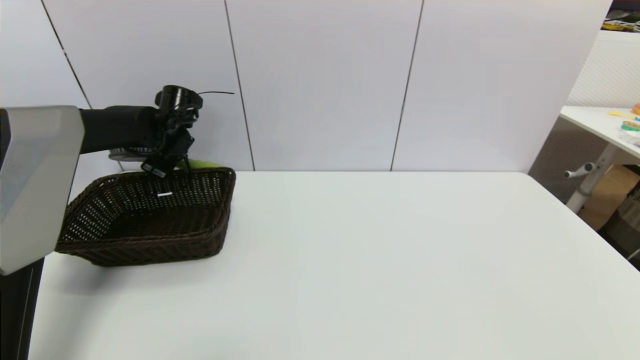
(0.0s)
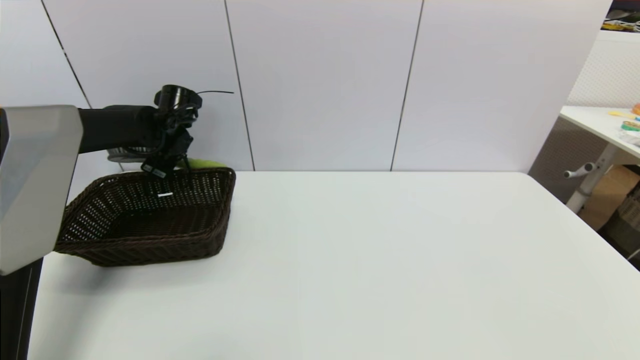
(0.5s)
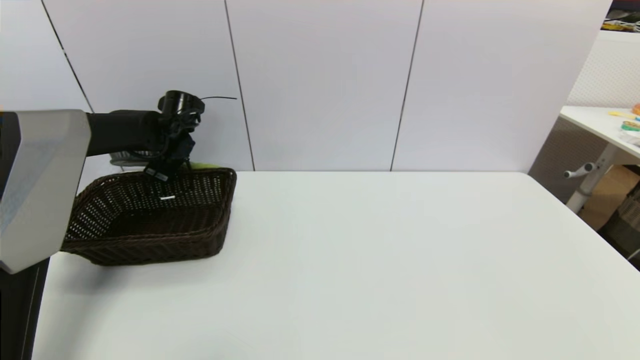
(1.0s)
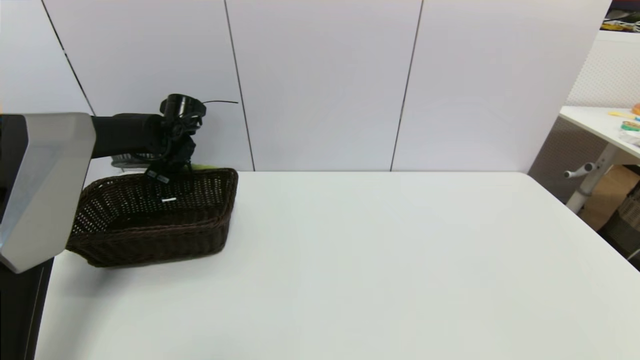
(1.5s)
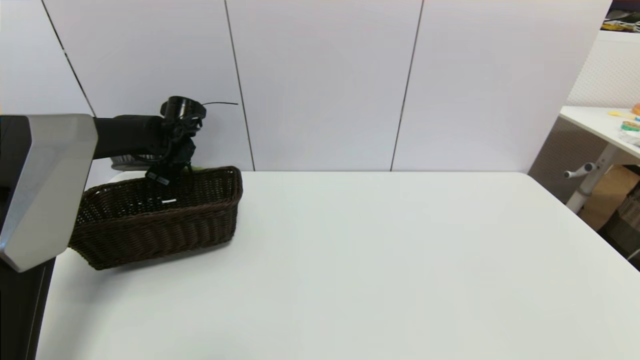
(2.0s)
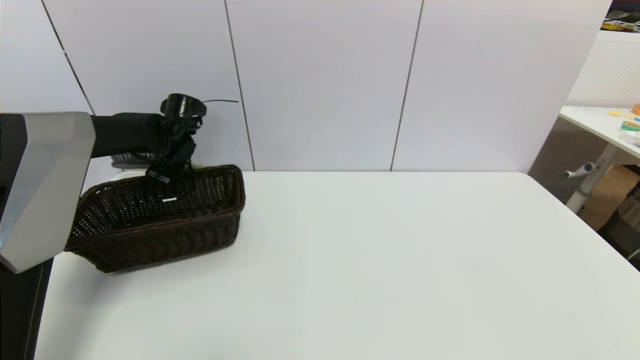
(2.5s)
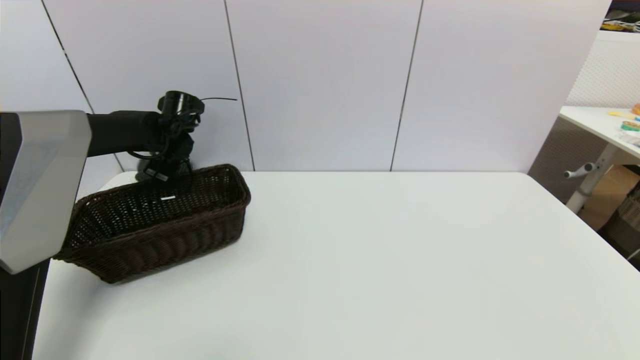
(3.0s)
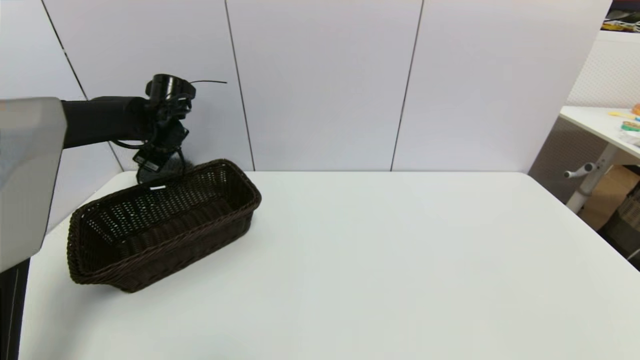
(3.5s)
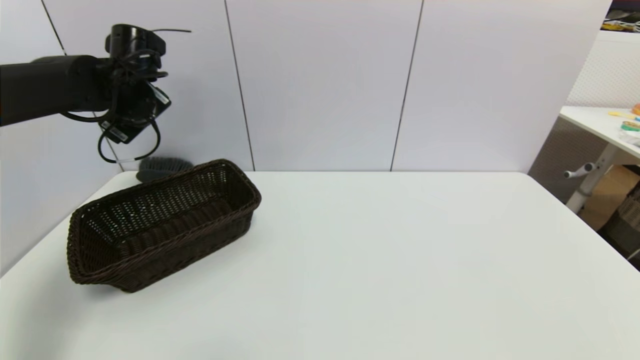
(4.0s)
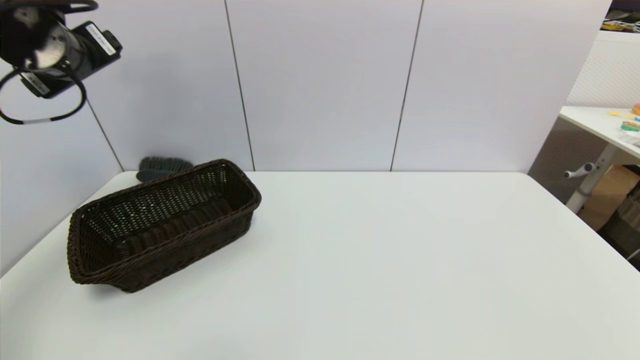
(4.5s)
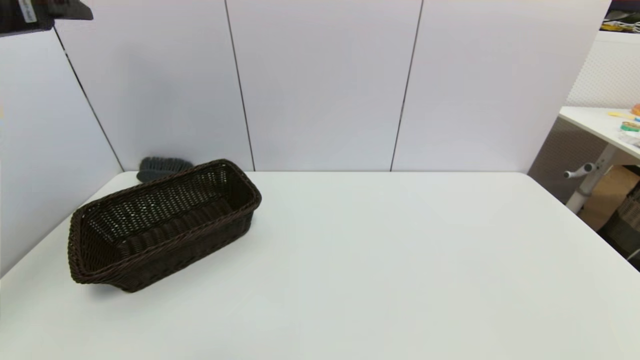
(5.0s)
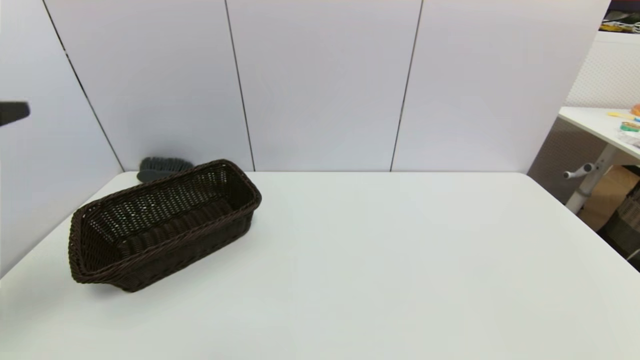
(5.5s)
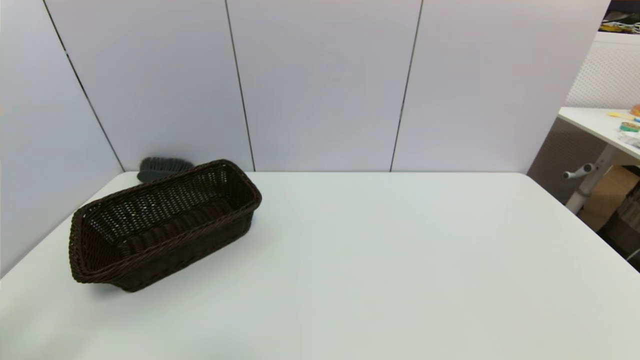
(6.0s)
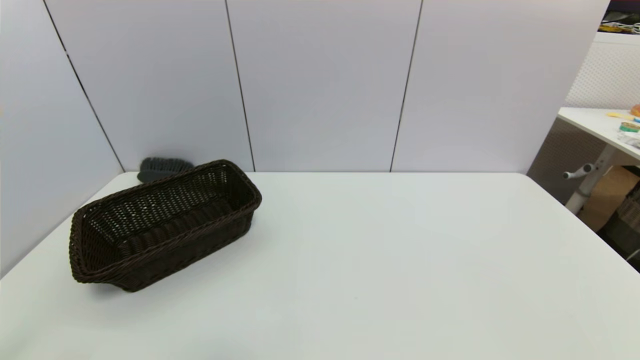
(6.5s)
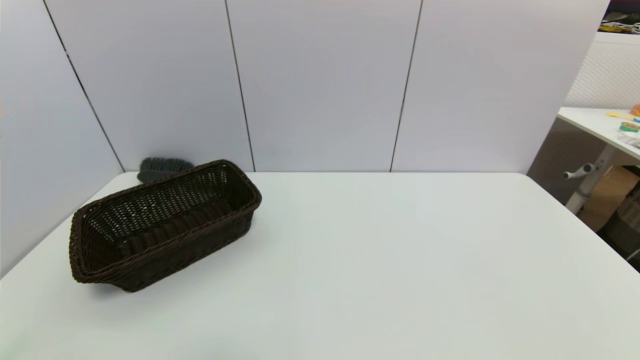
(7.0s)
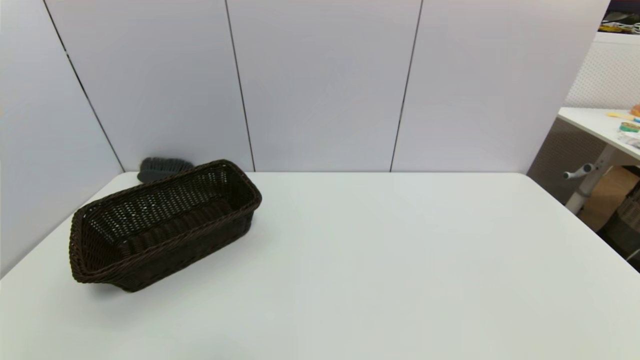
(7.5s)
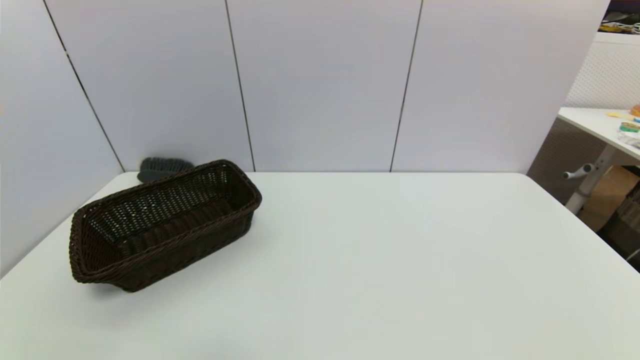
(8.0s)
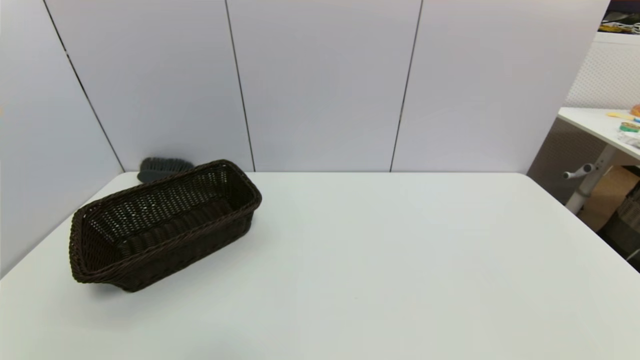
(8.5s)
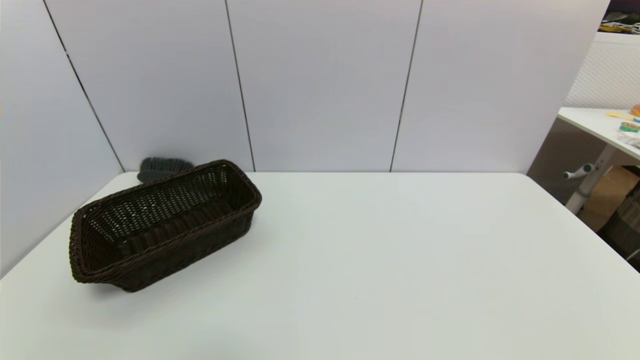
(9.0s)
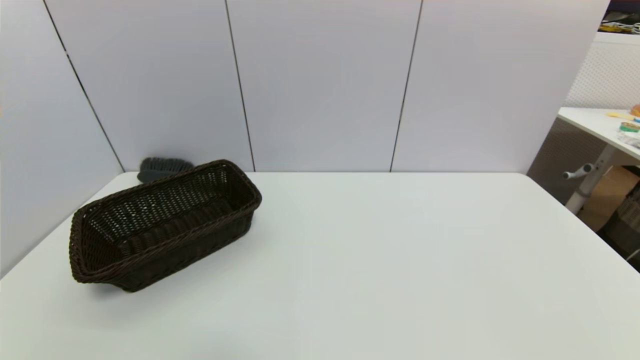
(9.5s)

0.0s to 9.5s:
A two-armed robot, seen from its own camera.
Task of the whole recording: put the brush in the designated position.
Step, 0.0s to 2.5s: Place the brush on the table with left gripper.
0.0s to 2.0s: The grippers move only a little.
2.0s to 4.0s: The left gripper is displaced upward and backward by roughly 15 cm, and opens.
4.0s to 5.5s: The left gripper travels backward by approximately 35 cm.
5.5s to 7.5s: The left gripper travels downward by approximately 25 cm.

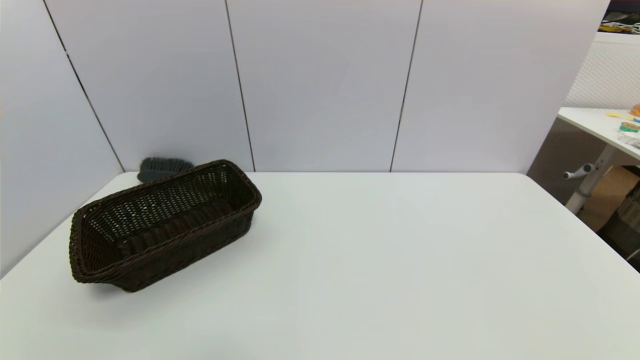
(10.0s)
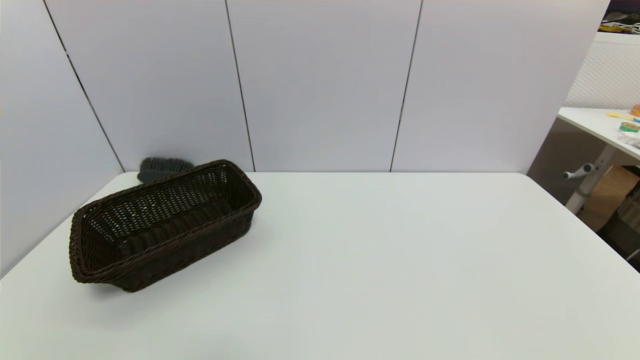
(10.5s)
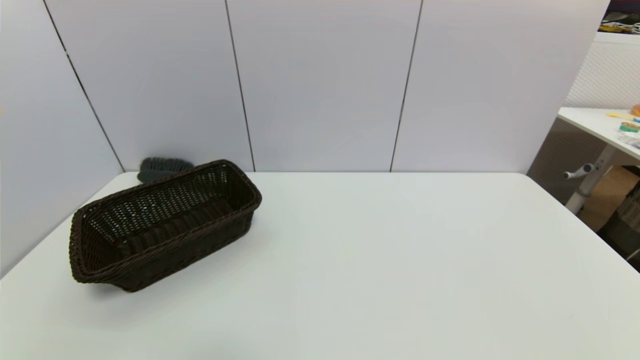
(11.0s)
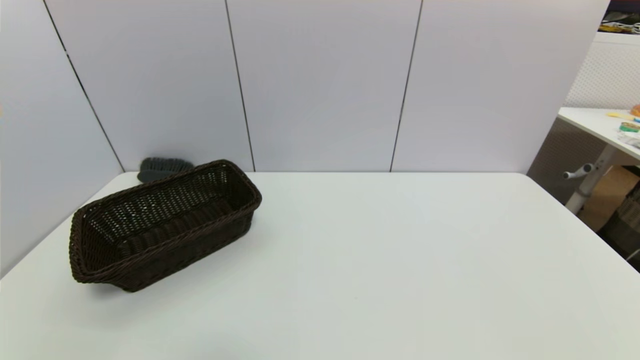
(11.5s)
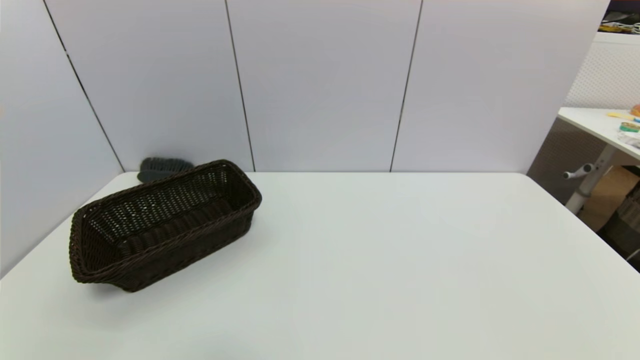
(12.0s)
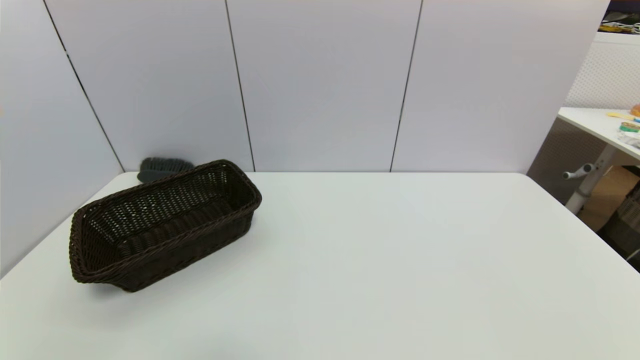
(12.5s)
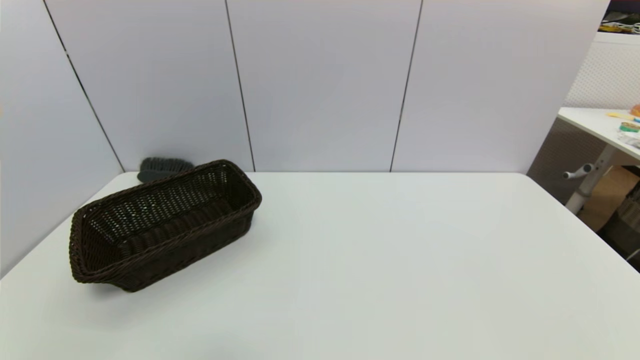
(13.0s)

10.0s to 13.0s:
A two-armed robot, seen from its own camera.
Task of the whole recording: put the brush in the designated position.
10.0s to 13.0s: The two grippers keep their place.
